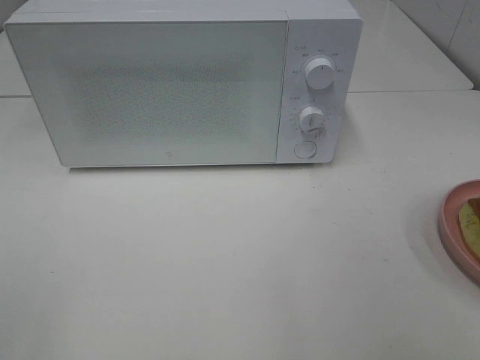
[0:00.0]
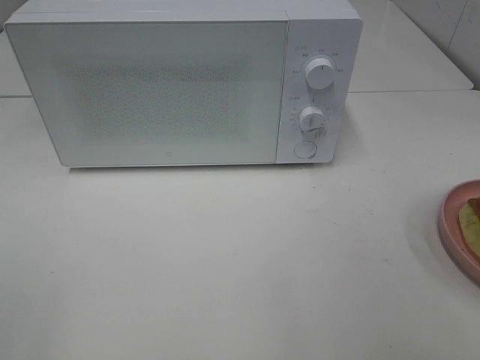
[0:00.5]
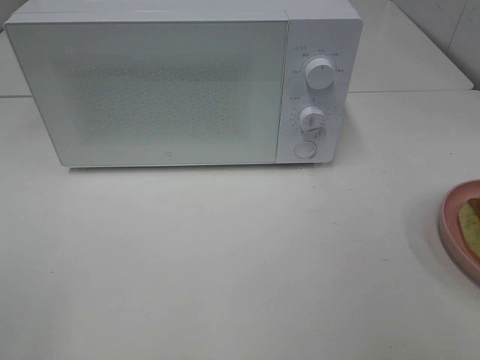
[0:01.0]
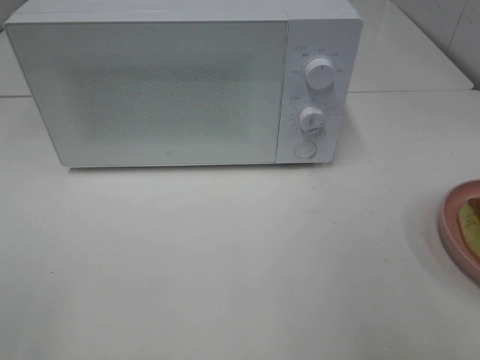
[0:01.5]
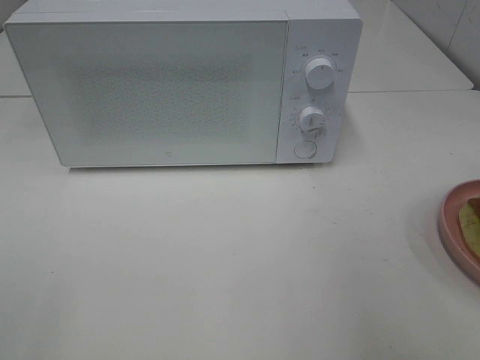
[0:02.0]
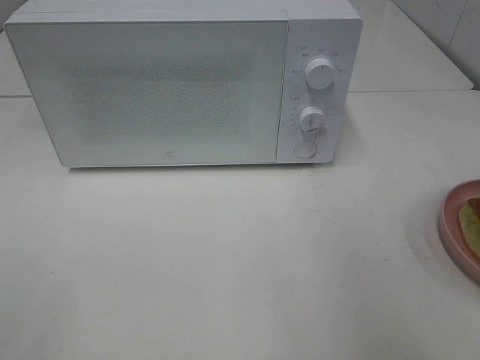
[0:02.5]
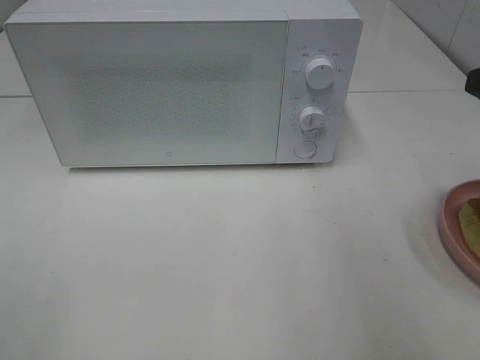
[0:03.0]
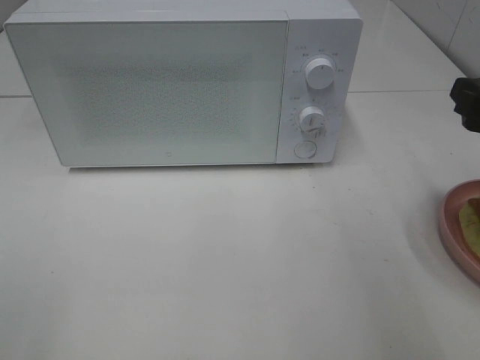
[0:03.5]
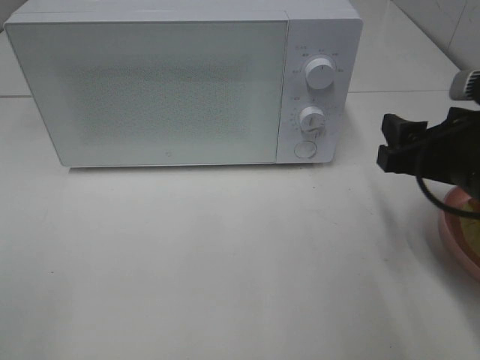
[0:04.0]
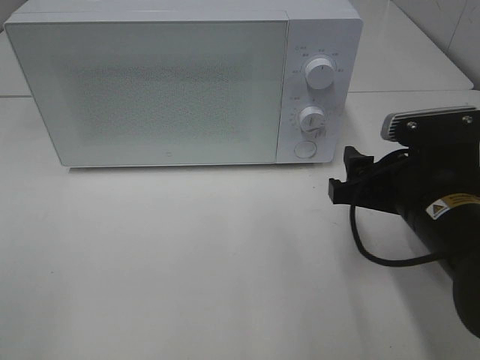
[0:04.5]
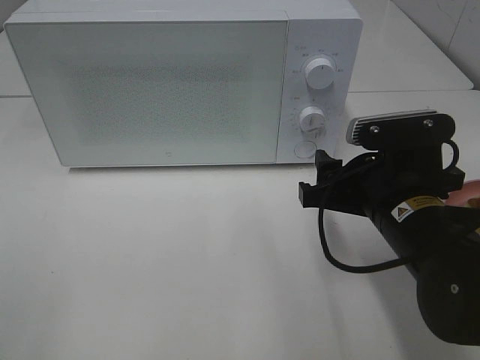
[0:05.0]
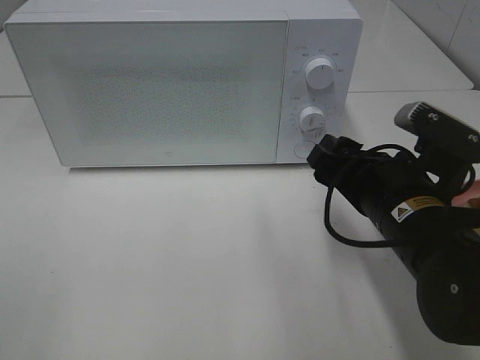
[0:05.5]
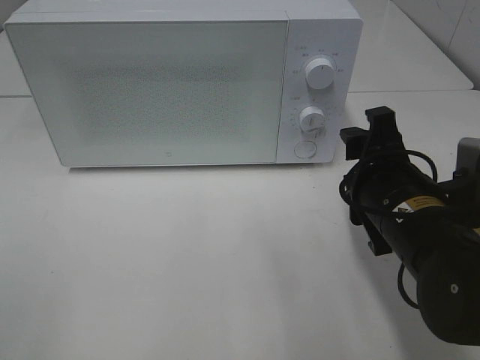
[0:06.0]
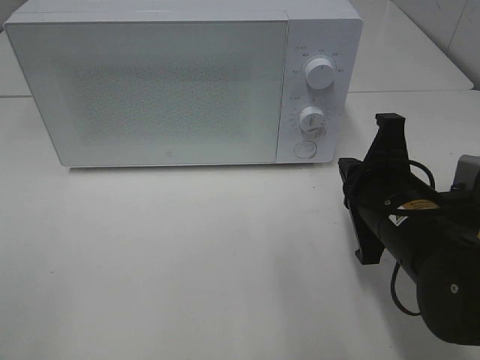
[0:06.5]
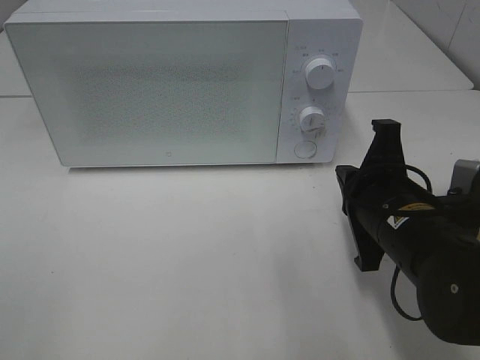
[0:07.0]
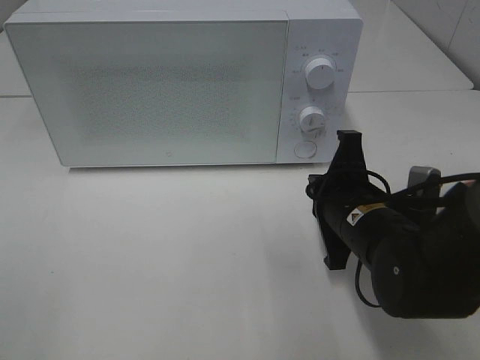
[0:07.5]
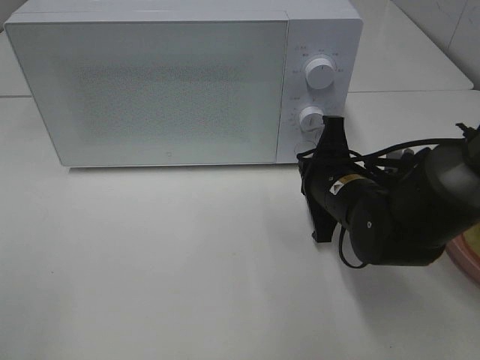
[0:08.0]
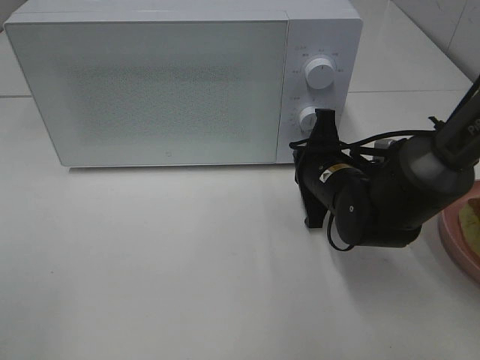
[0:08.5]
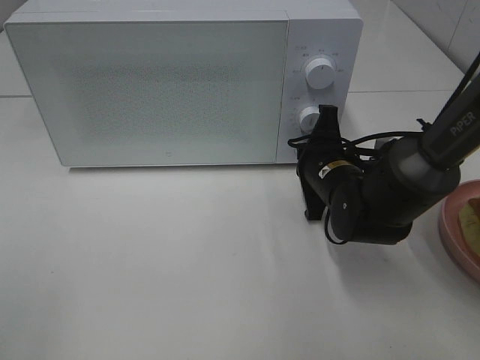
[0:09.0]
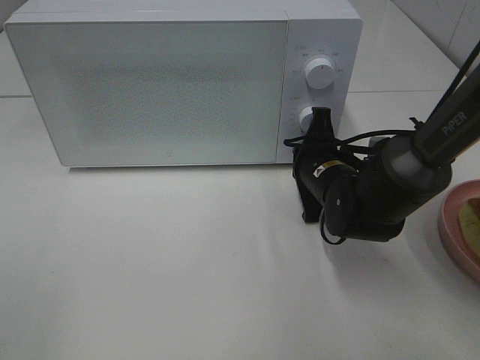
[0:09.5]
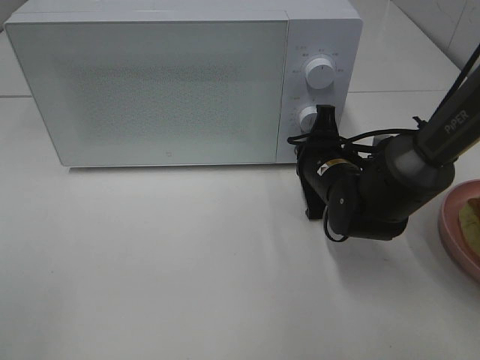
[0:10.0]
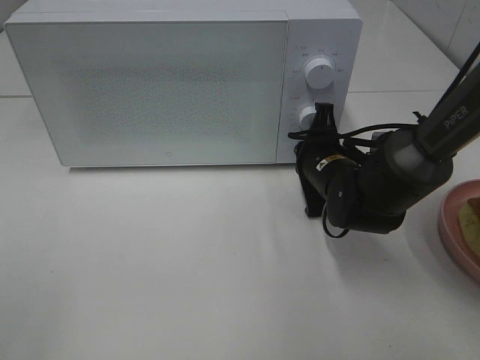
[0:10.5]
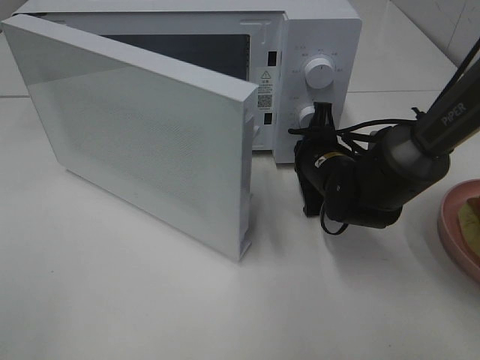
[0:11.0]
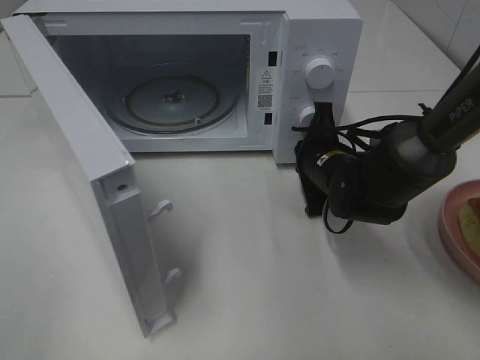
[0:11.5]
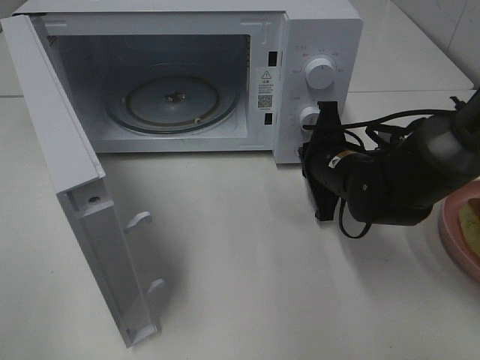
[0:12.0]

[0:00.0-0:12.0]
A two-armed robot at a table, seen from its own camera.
Task of the whole recording: Heat Sandwich.
Step, 0:00.0 to 0:12.0: Right hand: press the switch.
0:02.0 to 0:04.0: The right gripper travels downward, forward and to the left by about 15 cm.
0:04.0 to 0:06.0: The right gripper heads to the left, covering some 5 cm.
0:06.0 to 0:08.0: The right gripper travels forward and downward by approximately 10 cm, and closes its fingers.
0:08.0 to 0:10.0: The right gripper moves forward, about 5 cm.

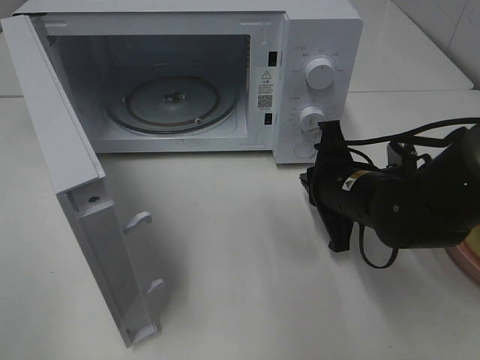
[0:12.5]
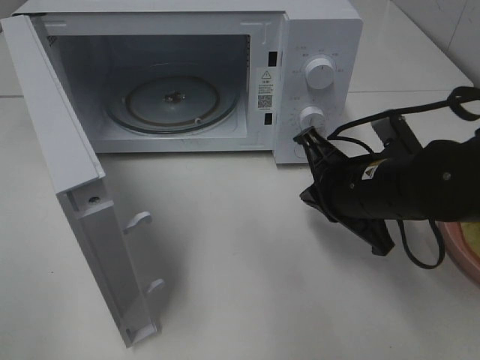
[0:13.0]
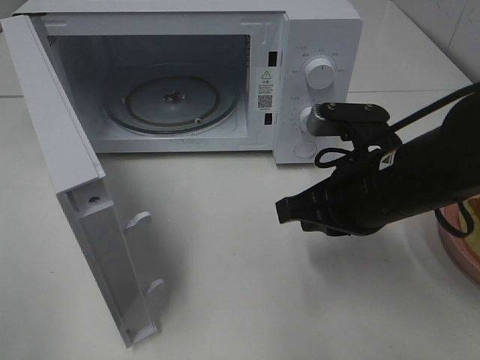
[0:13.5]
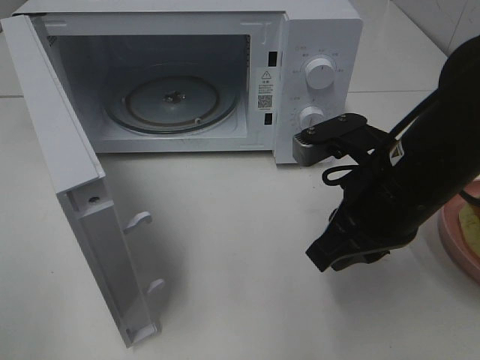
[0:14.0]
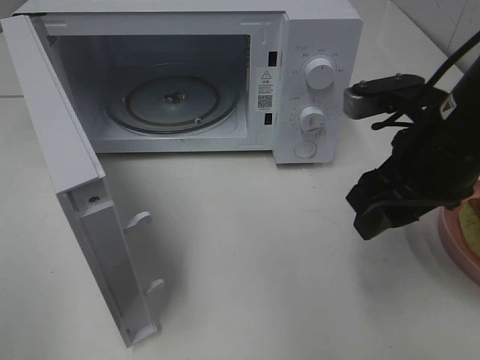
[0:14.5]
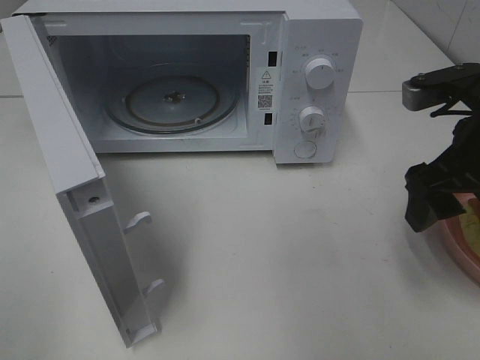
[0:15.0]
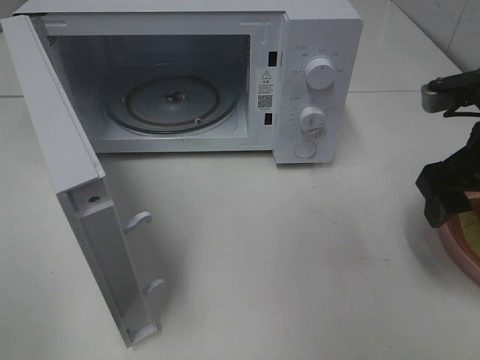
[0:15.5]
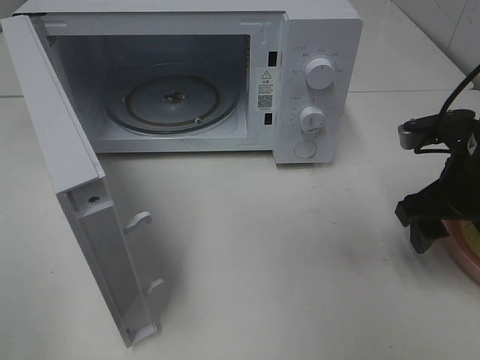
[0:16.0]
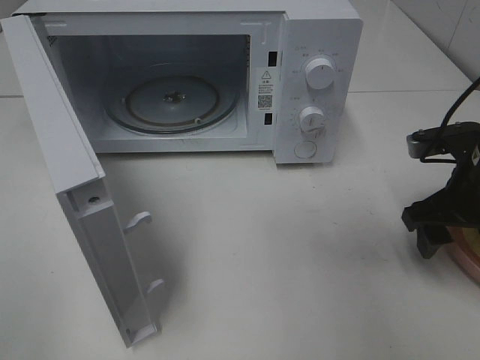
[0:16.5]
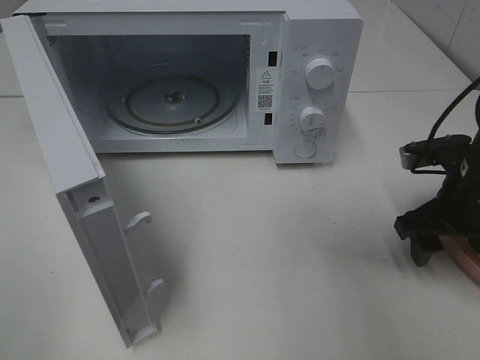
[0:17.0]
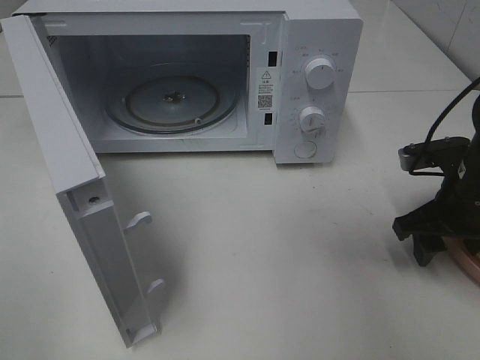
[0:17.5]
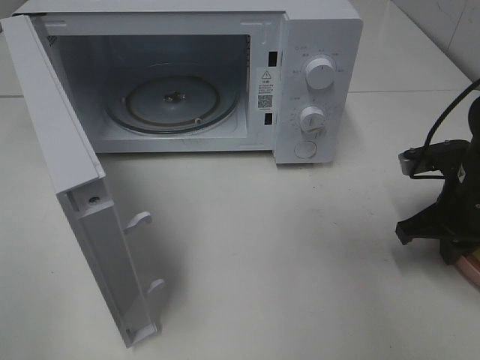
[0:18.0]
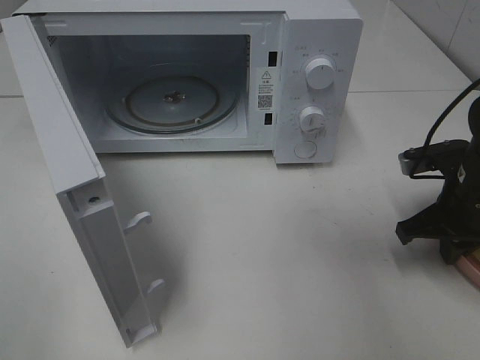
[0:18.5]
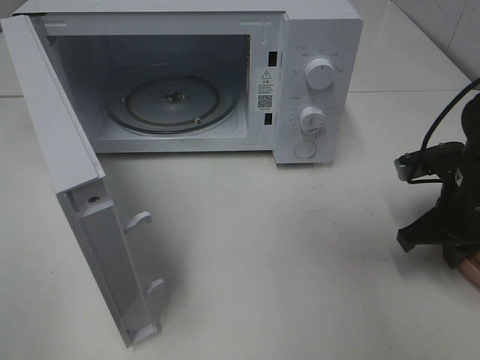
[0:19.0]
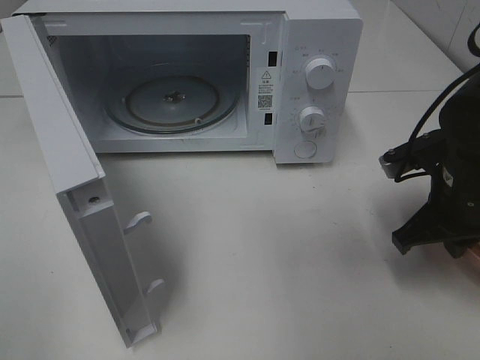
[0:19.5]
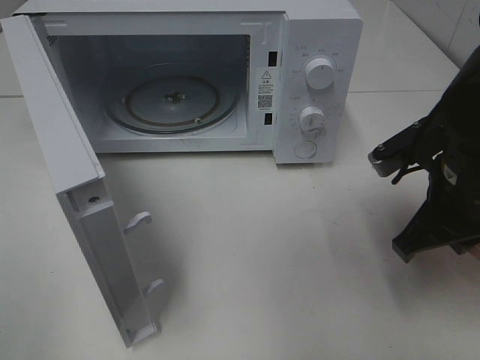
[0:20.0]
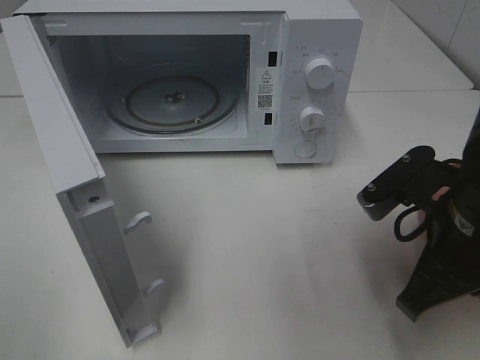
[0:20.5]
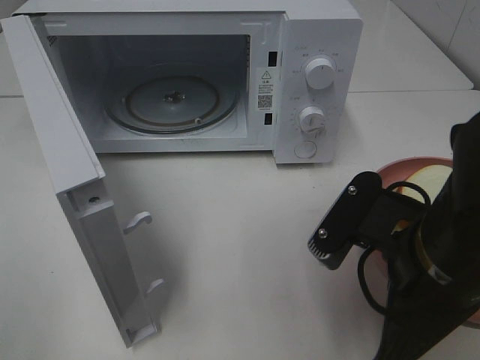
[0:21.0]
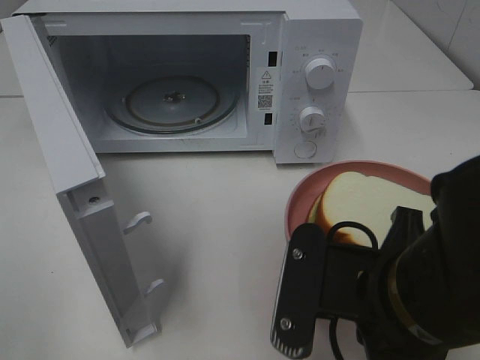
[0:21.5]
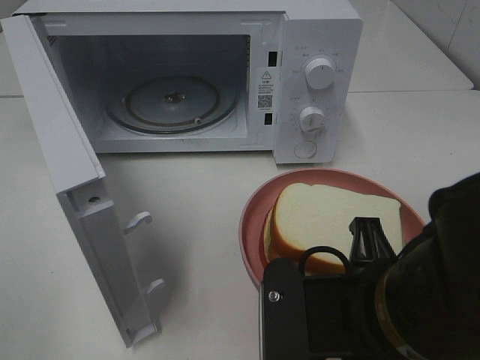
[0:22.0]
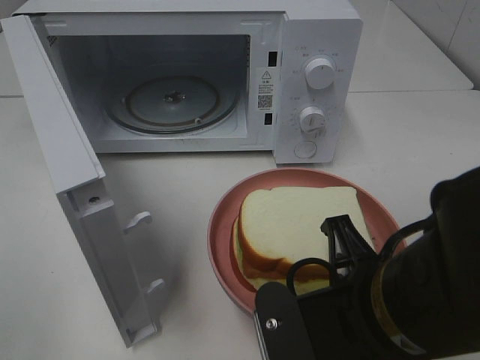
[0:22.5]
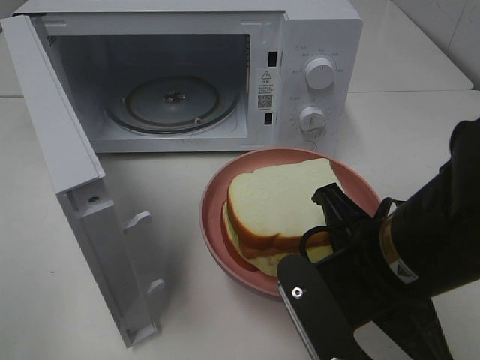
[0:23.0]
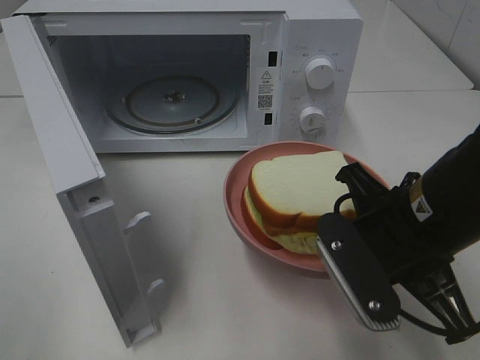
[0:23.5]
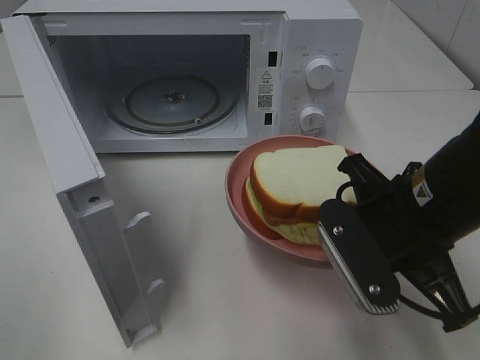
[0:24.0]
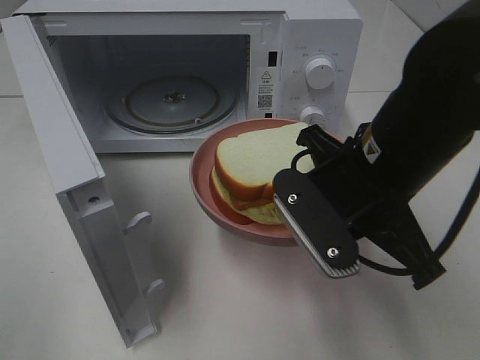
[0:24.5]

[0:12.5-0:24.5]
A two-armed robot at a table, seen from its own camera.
Task of the whole recording: Heat Sandwich.
Step, 0:12.5 to 0:18.5: Right hand: grab the plate with the sandwich.
0:12.5 to 0:14.5: The right gripper shifts some 15 cm upward and backward, and opens up.
0:14.5 to 0:16.5: The right gripper heads to the right and downward, covering about 10 cm.
0:16.5 to 0:18.5: The right gripper closes its fingers.
0:18.5 to 0:20.5: The right gripper travels backward, to the left and upward by approximately 15 cm.
0:20.5 to 0:22.5: The right gripper is displaced to the left and backward by some 10 cm.
0:22.5 to 0:24.5: The right gripper is displaced forward by roughly 10 cm.

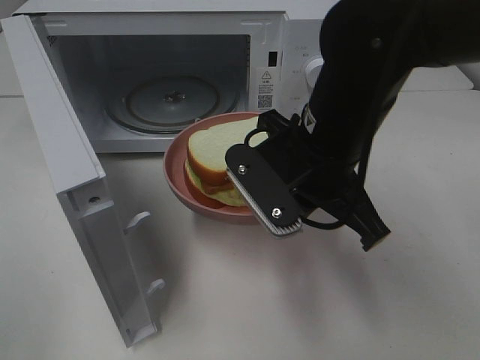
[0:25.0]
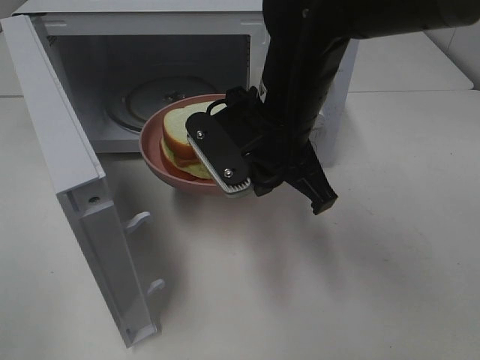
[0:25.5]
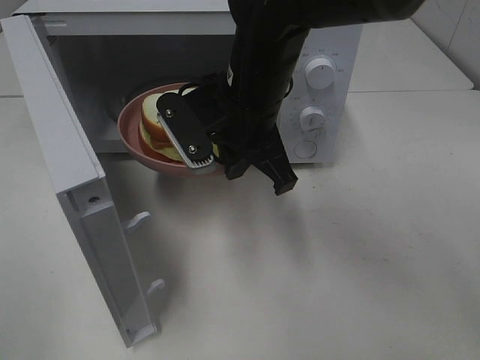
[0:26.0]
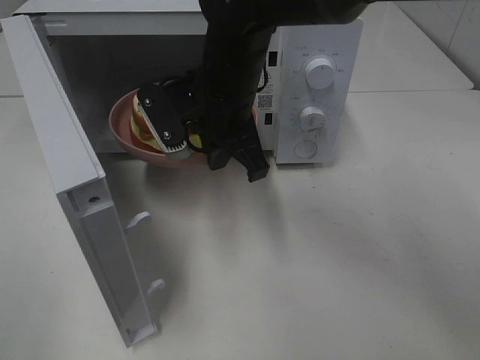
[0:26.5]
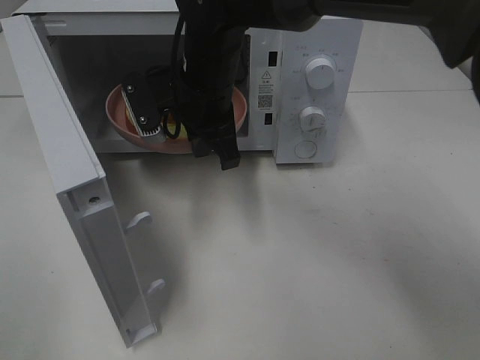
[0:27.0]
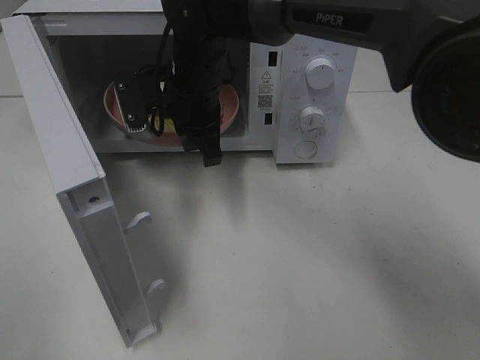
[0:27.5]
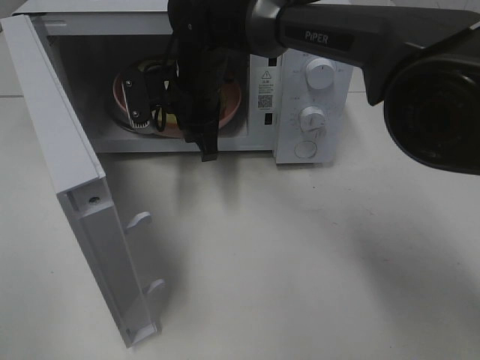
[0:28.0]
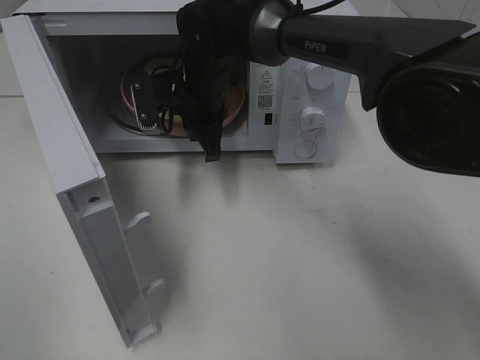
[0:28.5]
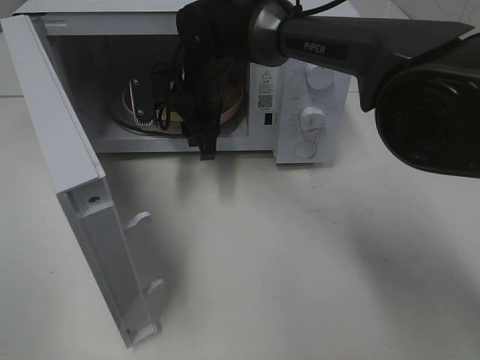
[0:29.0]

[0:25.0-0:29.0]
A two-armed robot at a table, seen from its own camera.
Task of the whole recording: Heat Sandwich.
0:25.0 to 0:27.0: The right gripper shifts about 15 cm forward and to the left.
0:27.0 to 0:29.0: The right gripper is displaced forward by roughly 5 cm, and opens its fingers.
